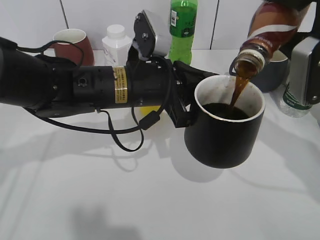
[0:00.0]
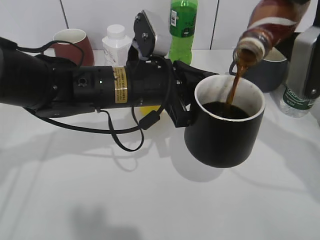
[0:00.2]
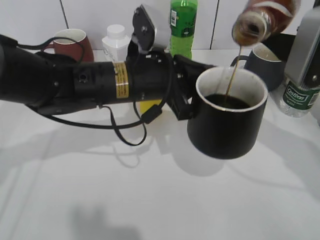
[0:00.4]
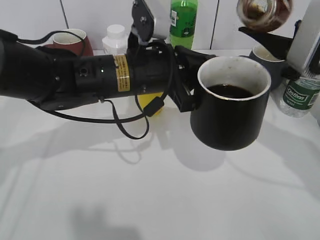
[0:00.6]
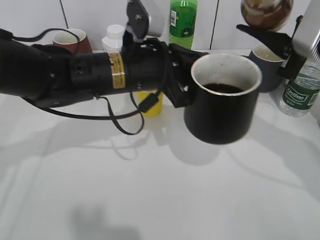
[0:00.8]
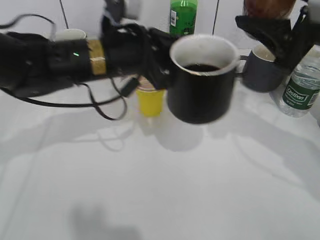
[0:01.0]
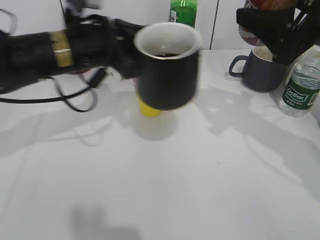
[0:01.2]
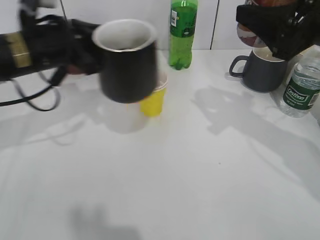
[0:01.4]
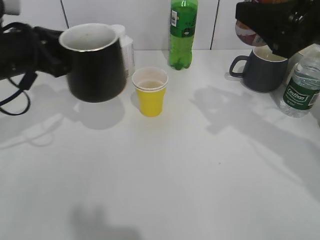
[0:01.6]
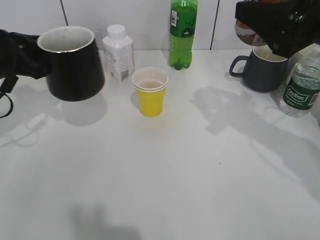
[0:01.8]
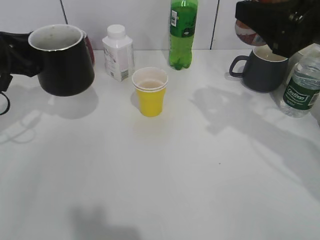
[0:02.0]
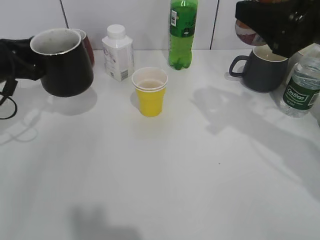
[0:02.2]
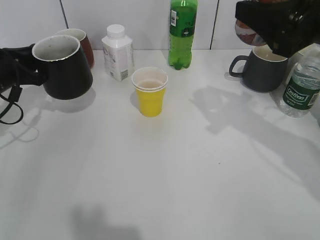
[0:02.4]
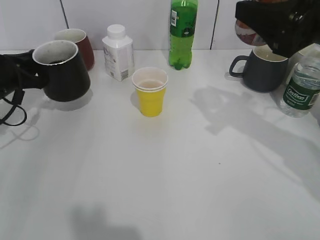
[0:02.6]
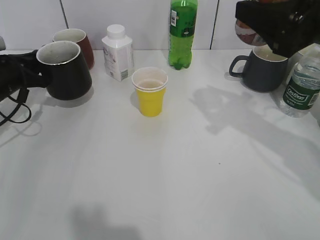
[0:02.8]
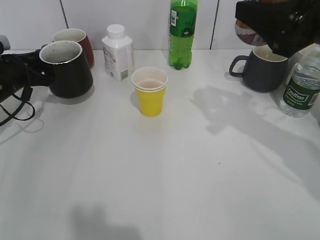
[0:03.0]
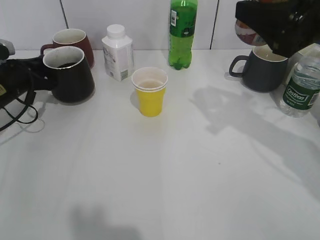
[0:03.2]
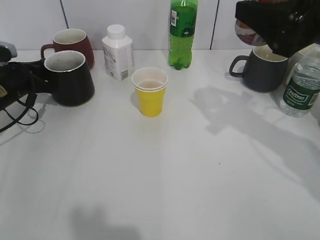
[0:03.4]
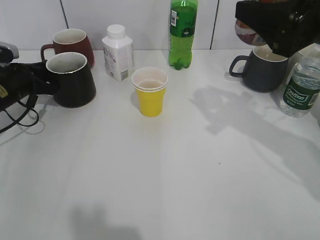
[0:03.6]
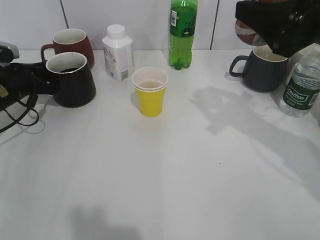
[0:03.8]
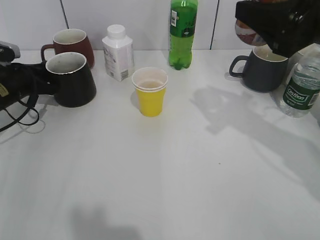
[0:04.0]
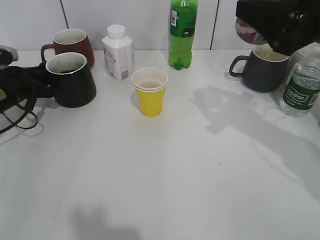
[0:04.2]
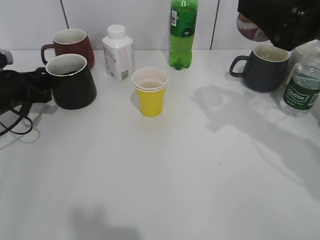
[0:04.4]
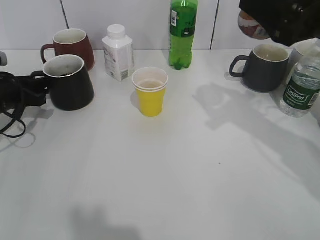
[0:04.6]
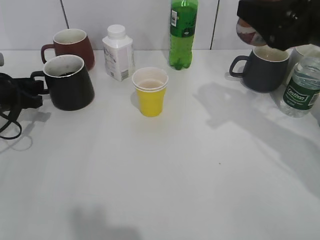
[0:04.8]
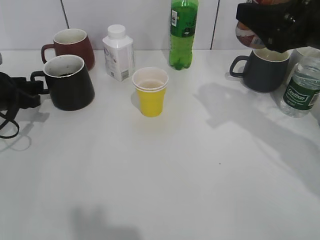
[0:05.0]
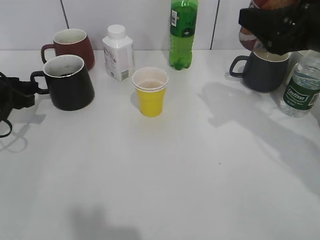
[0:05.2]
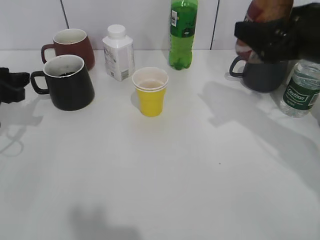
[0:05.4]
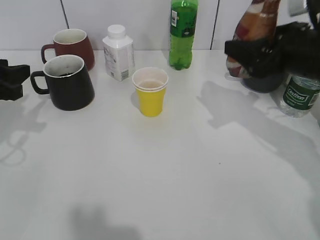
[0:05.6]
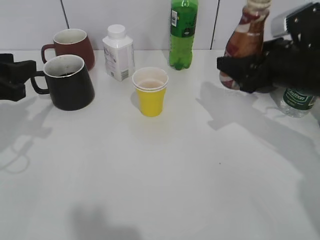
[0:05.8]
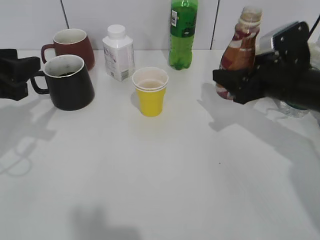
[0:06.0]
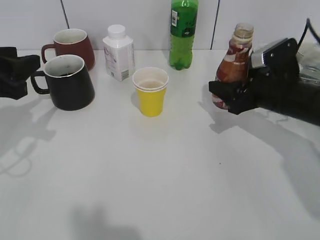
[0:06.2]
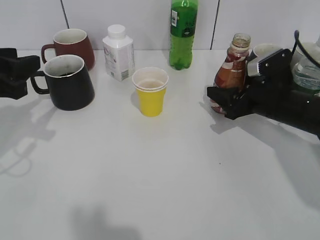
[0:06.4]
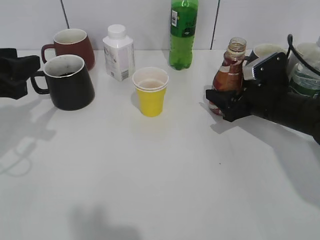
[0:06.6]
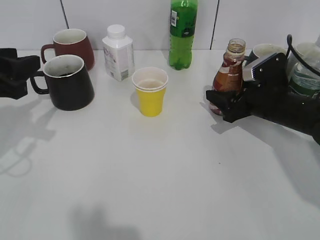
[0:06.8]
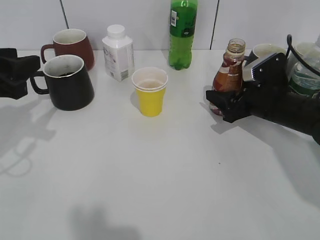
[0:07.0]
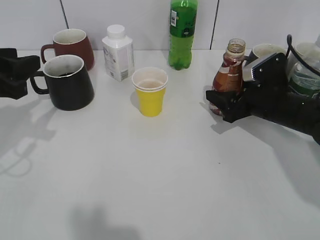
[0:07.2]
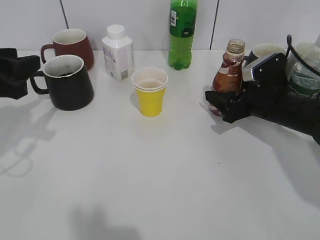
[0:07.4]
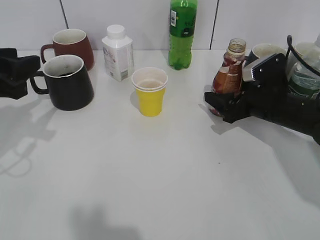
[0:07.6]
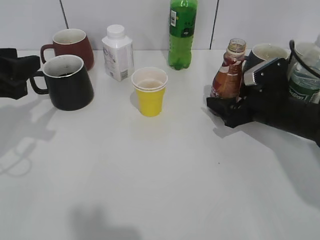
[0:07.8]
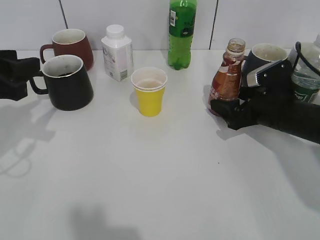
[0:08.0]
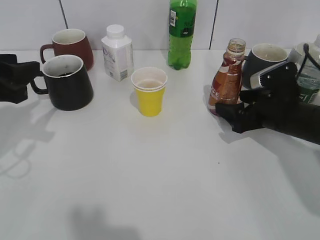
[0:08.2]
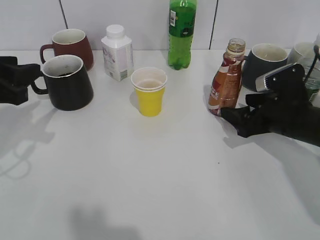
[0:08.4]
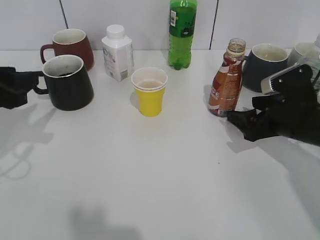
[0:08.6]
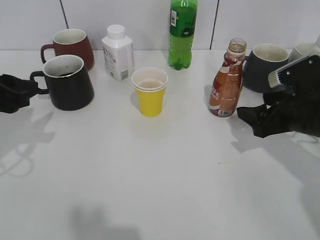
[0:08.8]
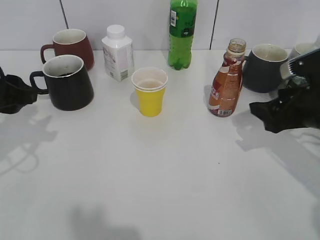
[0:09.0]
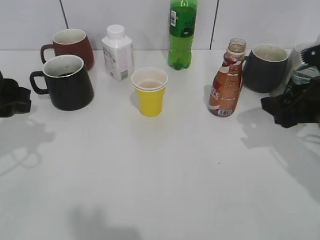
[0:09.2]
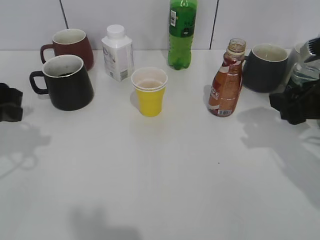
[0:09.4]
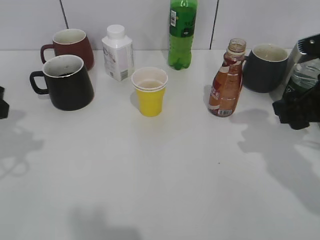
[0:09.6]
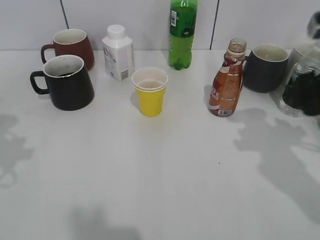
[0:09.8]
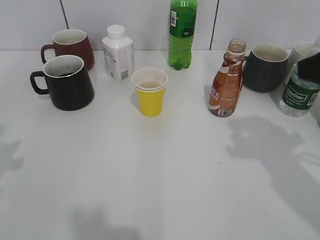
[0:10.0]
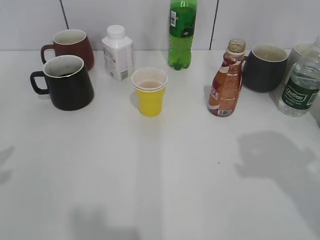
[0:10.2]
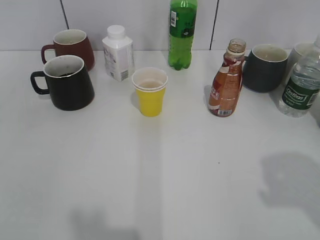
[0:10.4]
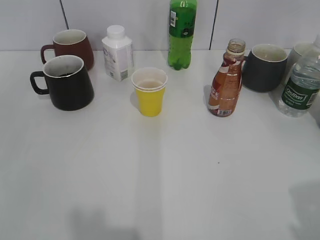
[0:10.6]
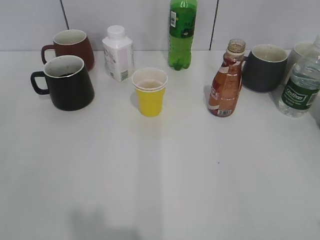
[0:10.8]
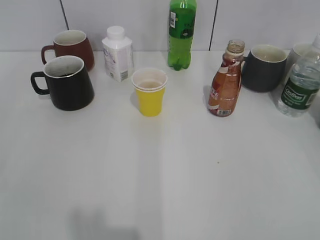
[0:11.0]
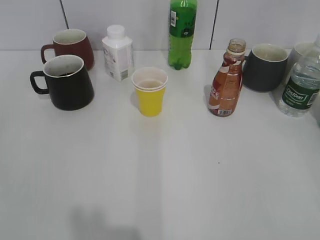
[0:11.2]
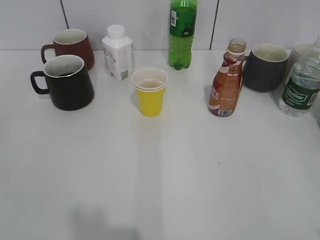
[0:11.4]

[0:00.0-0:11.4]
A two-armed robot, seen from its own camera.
Step, 0:00.6 to 0:04.8: Place the black cup on the table with left gripper.
Step, 0:05.0 to 0:08.0: Place the coffee bottle on the table with right gripper.
0:00.0 to 0:01.4: The left gripper moves to the left, some 15 cm.
0:01.4 to 0:02.8: The left gripper travels to the left, downward and forward by about 15 cm.
0:02.8 to 0:04.2: The left gripper opens up.
0:04.2 to 0:05.6: The left gripper heads backward and upward, covering approximately 15 cm, and opens. The right gripper heads downward, covering some 5 cm.
0:05.6 to 0:07.2: The right gripper goes approximately 10 cm downward. The left gripper shifts by approximately 5 cm.
0:07.2 to 0:08.6: The right gripper is displaced backward by about 5 cm, and opens its fingers.
0:08.6 to 0:10.0: The right gripper moves upward and backward, some 20 cm, and closes its fingers. Meanwhile the left gripper goes about 15 cm upward and backward.
0:10.0 to 0:11.4: The right gripper moves backward and to the right, about 20 cm.

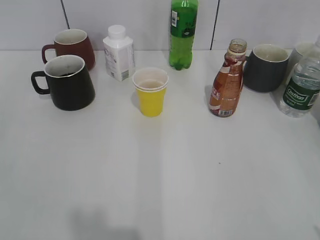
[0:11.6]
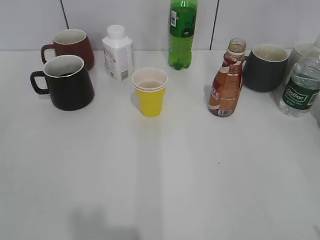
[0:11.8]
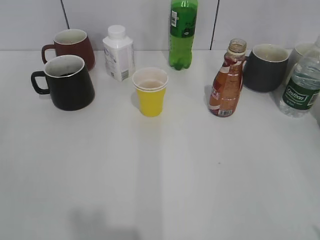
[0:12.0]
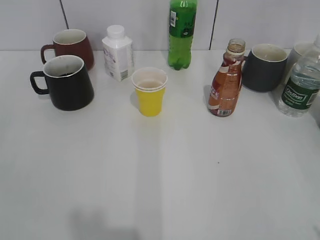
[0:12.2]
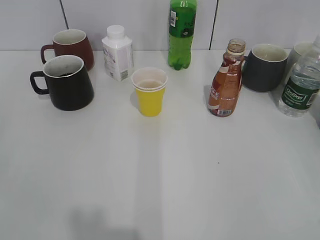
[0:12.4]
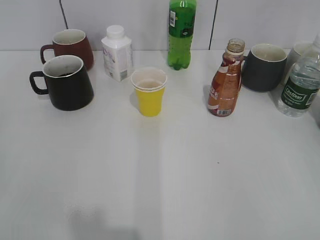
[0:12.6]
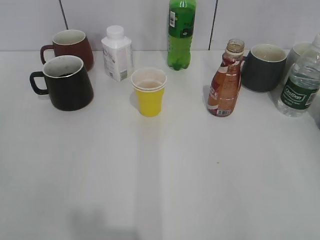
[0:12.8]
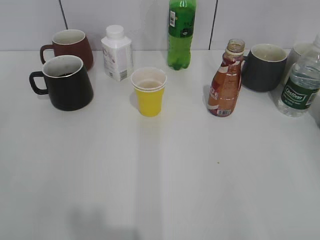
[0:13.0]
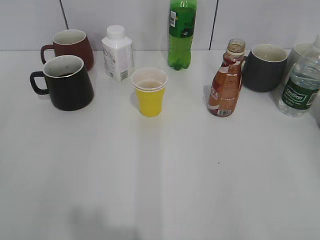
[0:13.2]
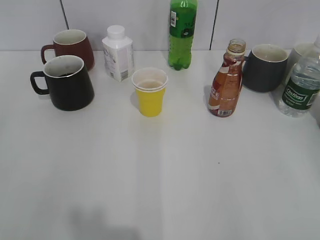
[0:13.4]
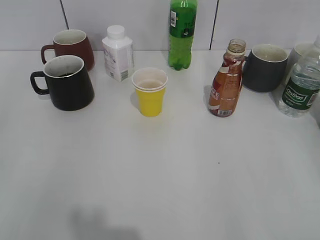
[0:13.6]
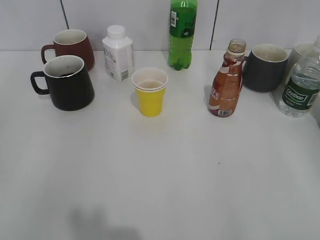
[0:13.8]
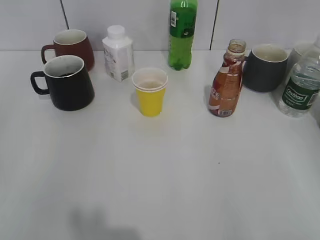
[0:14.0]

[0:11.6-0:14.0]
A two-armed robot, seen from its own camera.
0:12.8 to 0:14.0: The grippers stay close to where they were, moving slightly.
